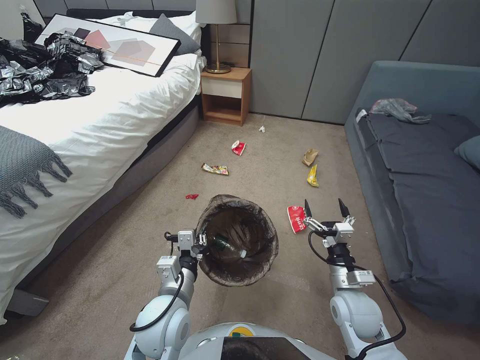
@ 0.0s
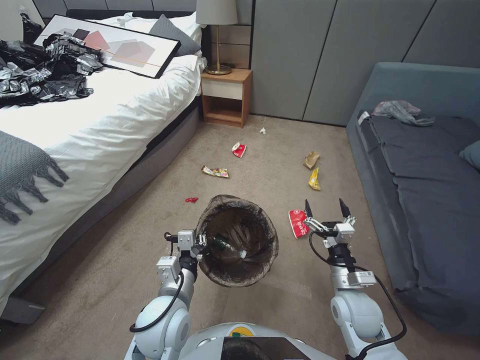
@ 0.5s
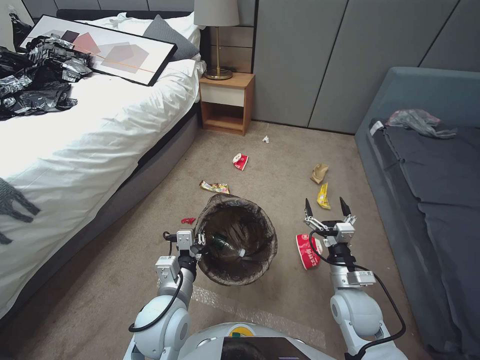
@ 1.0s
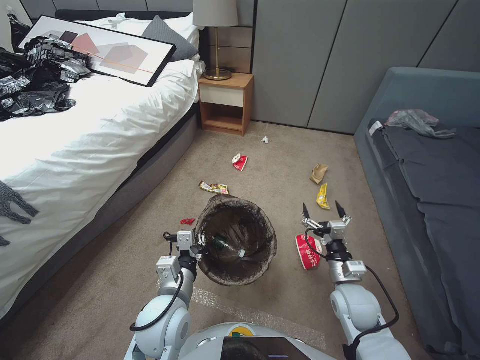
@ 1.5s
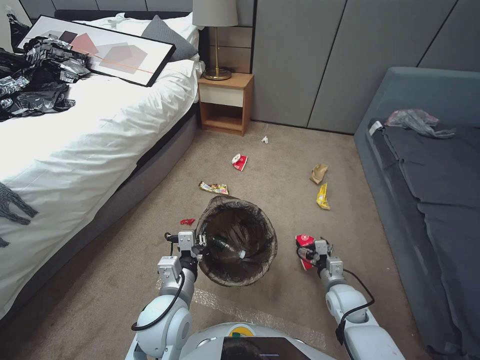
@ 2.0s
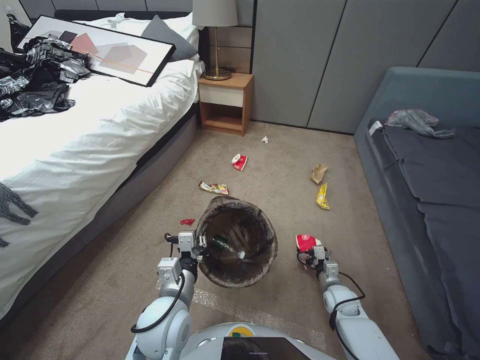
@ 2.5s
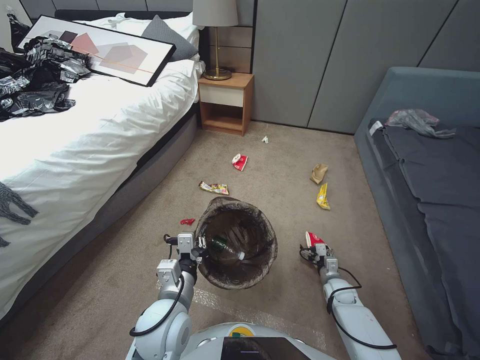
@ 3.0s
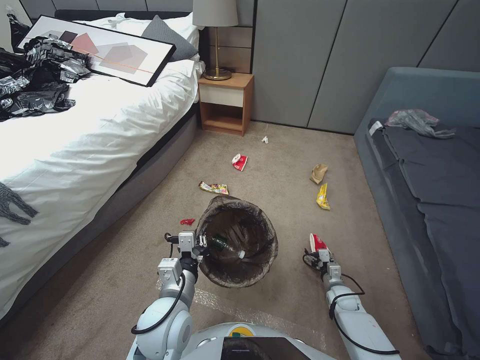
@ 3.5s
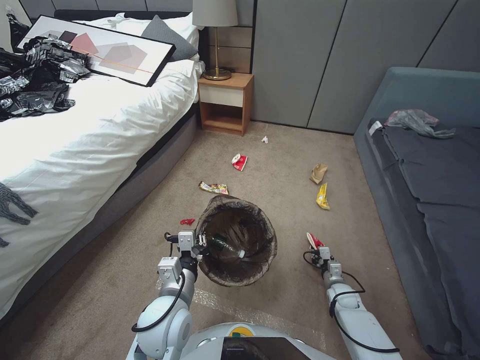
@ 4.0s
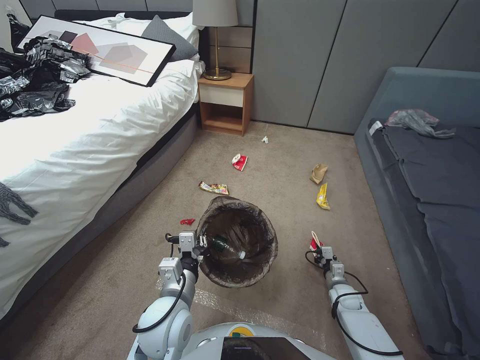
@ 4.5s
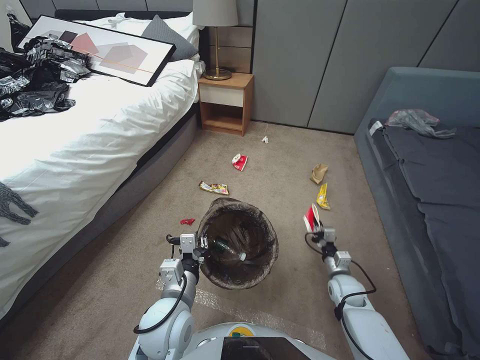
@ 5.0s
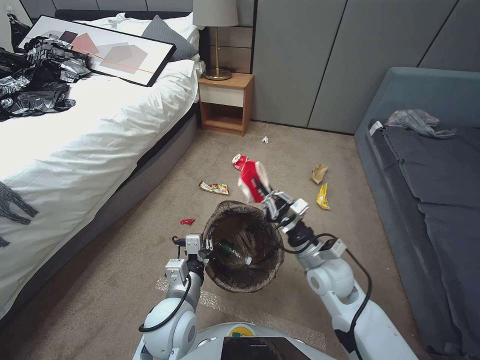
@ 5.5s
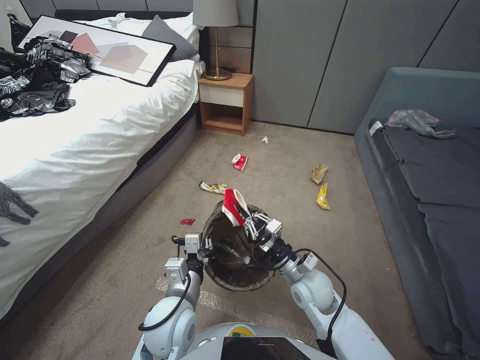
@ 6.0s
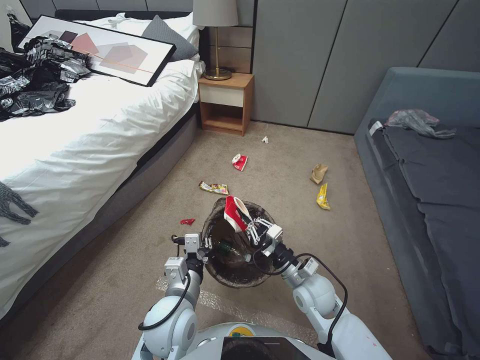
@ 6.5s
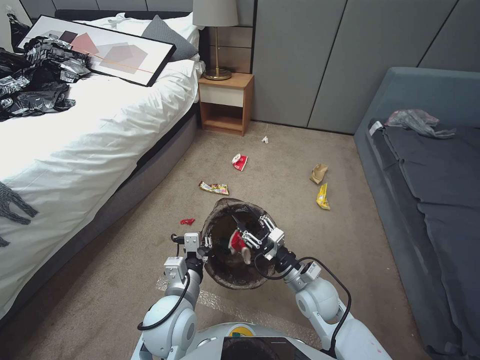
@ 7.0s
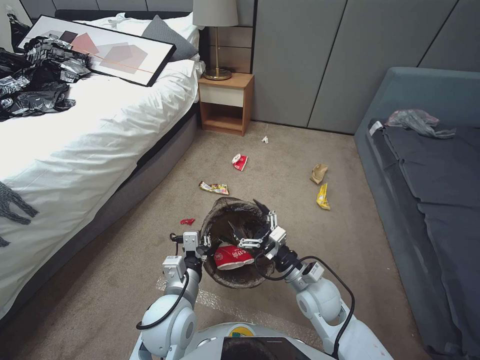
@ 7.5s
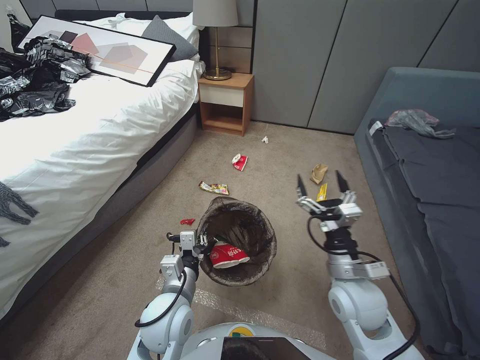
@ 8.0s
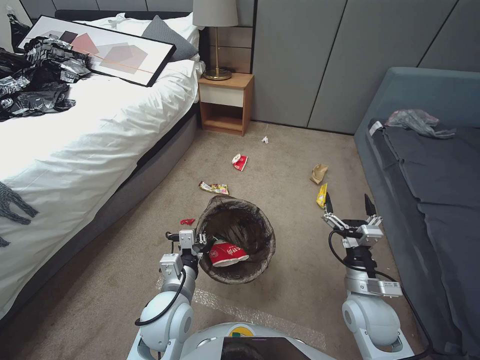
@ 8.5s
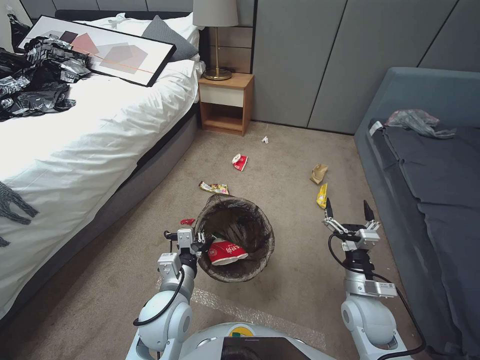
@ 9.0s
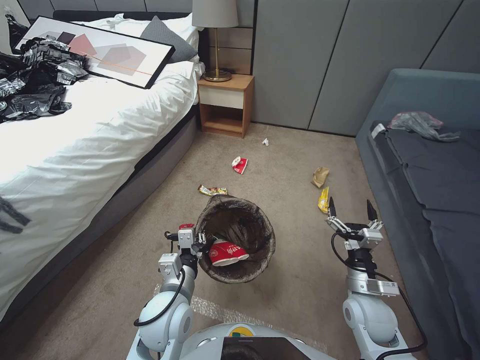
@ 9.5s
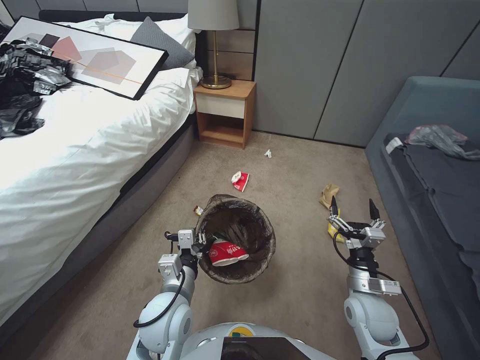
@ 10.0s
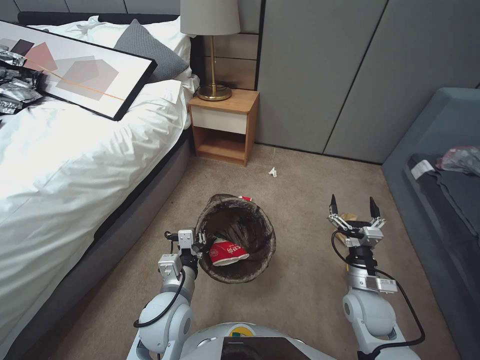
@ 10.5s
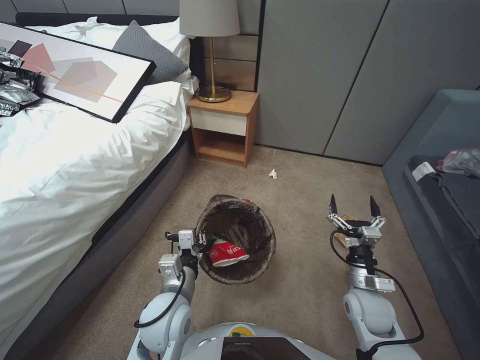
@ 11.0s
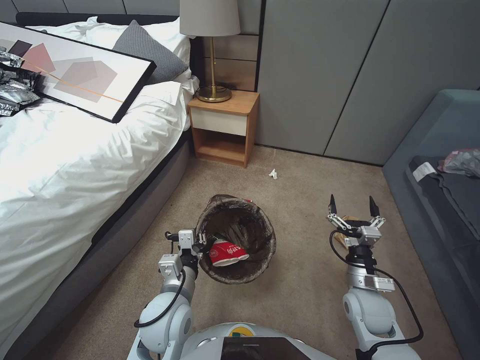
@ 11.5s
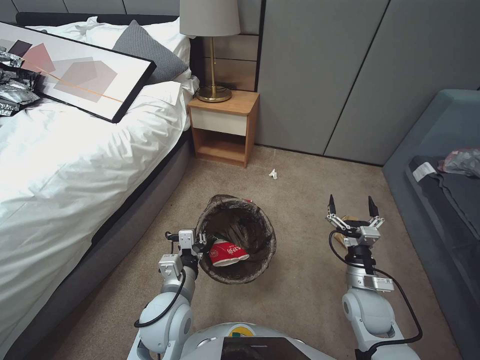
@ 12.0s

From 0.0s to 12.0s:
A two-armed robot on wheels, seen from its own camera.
Task of the whole recording: Pick up the trash bin, then pick up the garbage from the floor and place it into the trash bin.
From 0.0s to 2.0s: The right gripper is displaced downward by about 10 cm.
From 2.0s to 4.0s: The right gripper shifts some 15 cm downward and to the right, and closes up.
From 4.0s to 6.0s: The right gripper heads upward and to the left, covering some 30 cm.
From 6.0s to 8.0s: The right gripper is displaced upward by about 5 cm, and opens its fingers.
From 8.0s to 10.0s: The right gripper is displaced downward and to the right by about 10 cm.

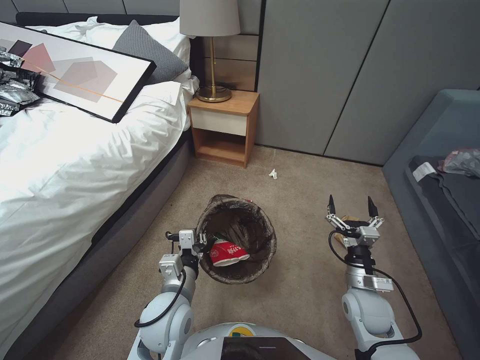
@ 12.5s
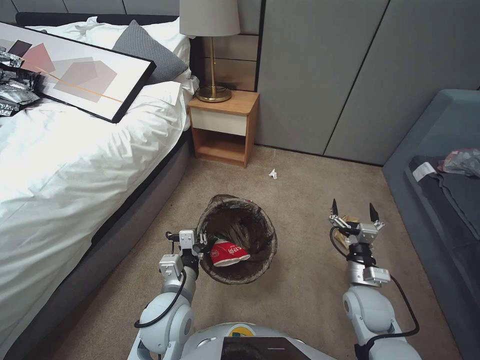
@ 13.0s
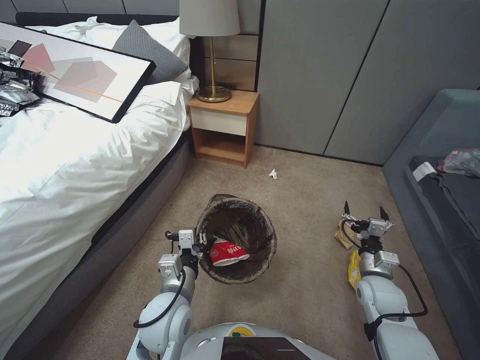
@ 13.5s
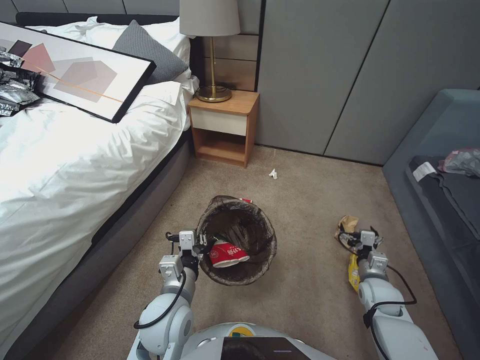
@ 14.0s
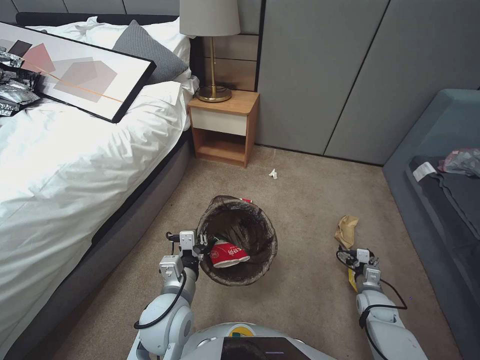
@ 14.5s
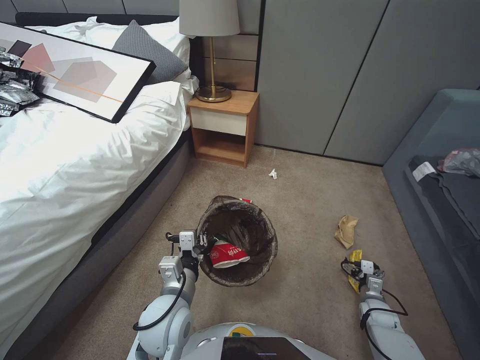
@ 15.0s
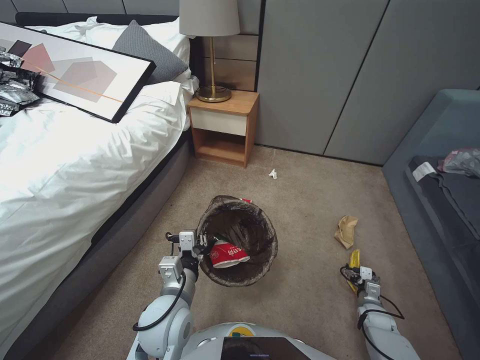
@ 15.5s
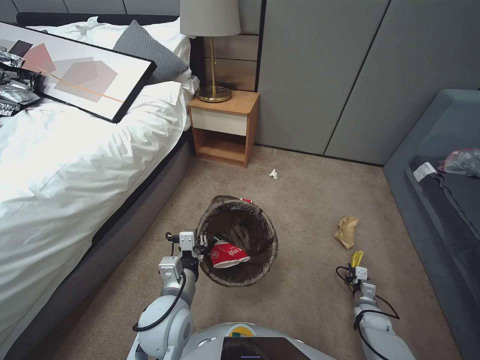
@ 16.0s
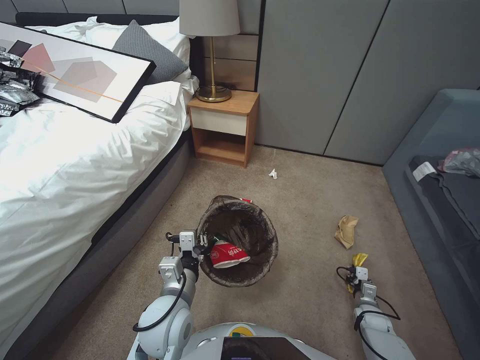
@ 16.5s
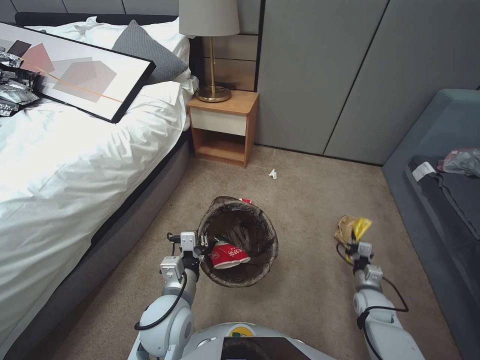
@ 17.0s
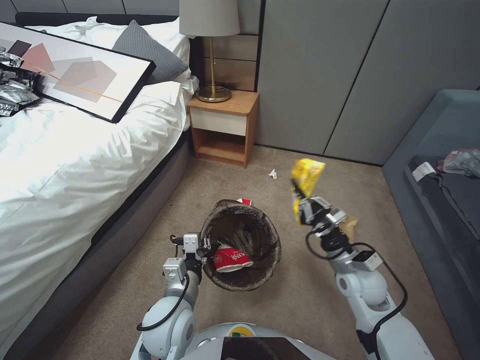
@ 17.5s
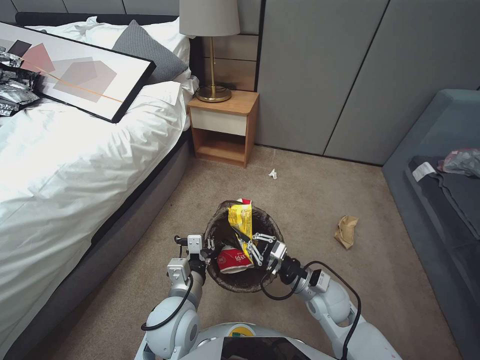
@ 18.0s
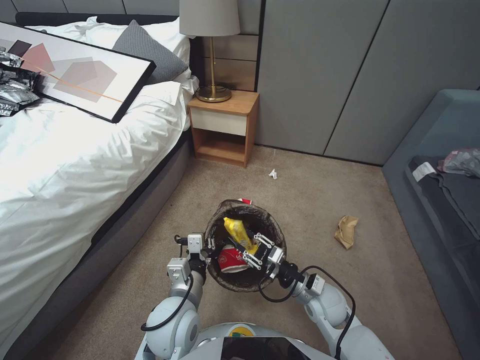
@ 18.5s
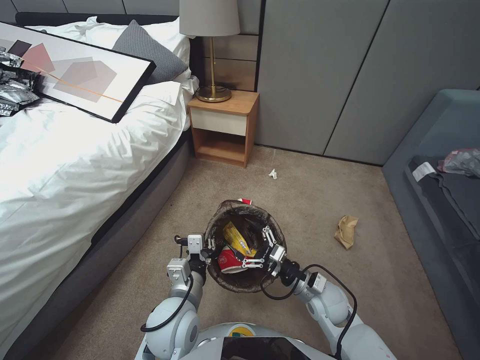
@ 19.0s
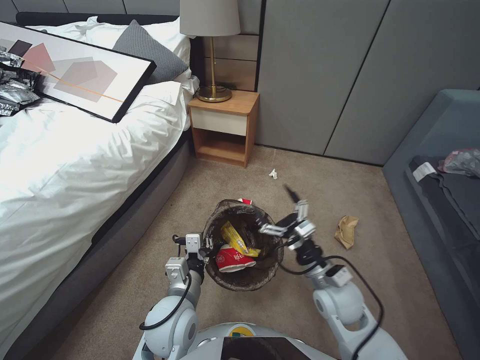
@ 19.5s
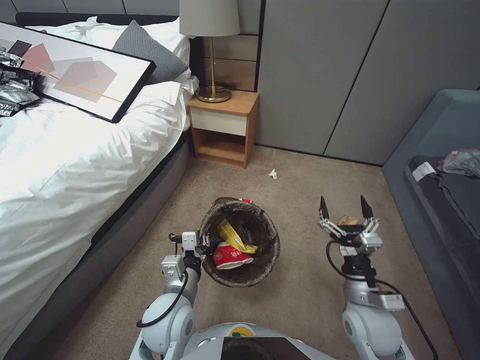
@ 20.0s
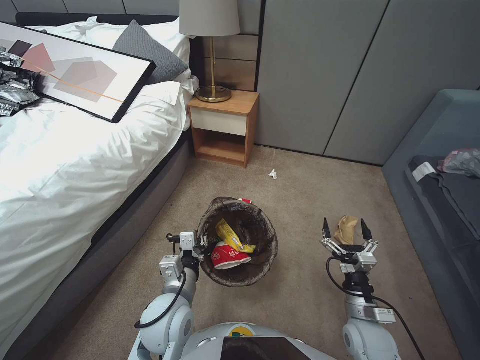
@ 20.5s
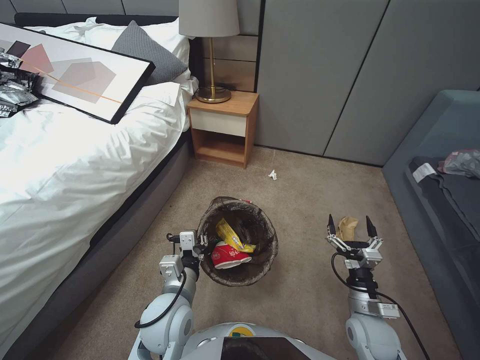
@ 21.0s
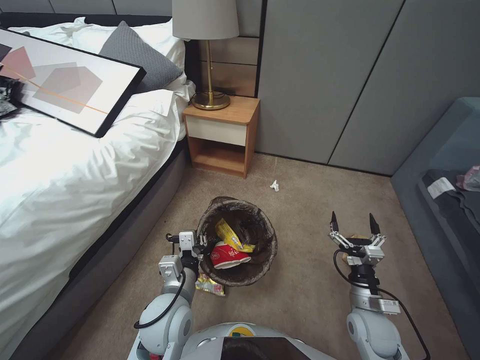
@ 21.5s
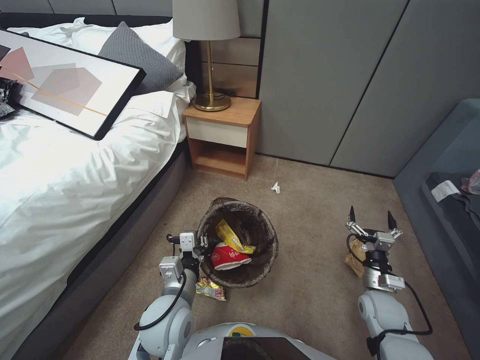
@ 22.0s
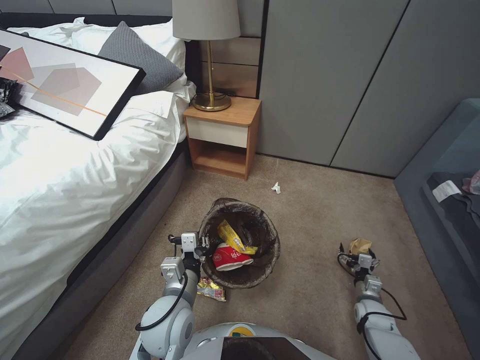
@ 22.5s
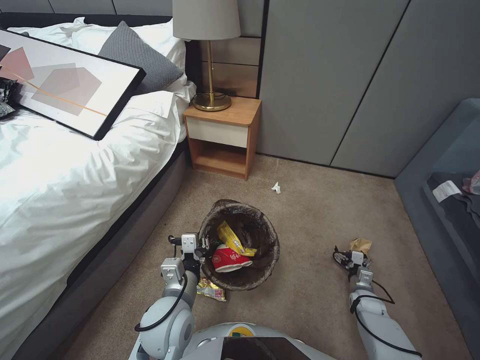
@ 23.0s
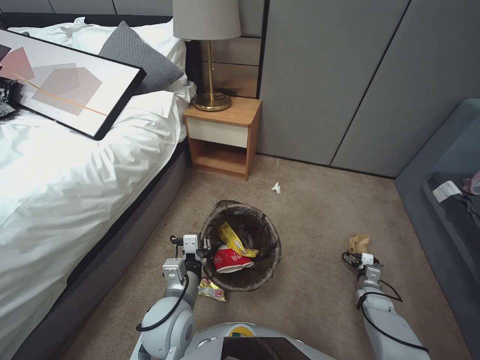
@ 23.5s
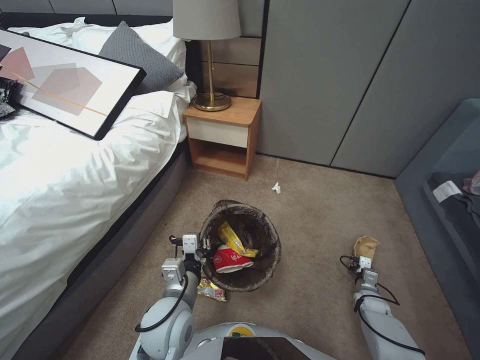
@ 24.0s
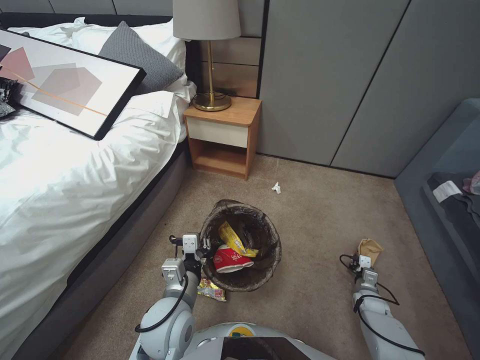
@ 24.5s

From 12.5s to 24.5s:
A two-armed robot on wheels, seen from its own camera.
Task of the whole recording: Pick up the trash bin, then pick up the garbage from the floor and place it into the trash bin.
From 12.5s to 14.5s: The right gripper goes approximately 15 cm downward and to the right.
From 14.5s to 16.5s: The right gripper is displaced downward by roughly 10 cm, and closes its fingers.
From 16.5s to 18.5s: The right gripper shifts about 30 cm to the left and upward.
From 18.5s to 20.5s: The right gripper shifts approximately 10 cm to the right and backward, reaches about 10 cm upward, then returns, and opens.
From 20.5s to 22.5s: The right gripper is displaced to the right, downward and forward by about 15 cm.
From 22.5s to 24.5s: The right gripper heads downward and to the right, covering roughly 15 cm, and closes.

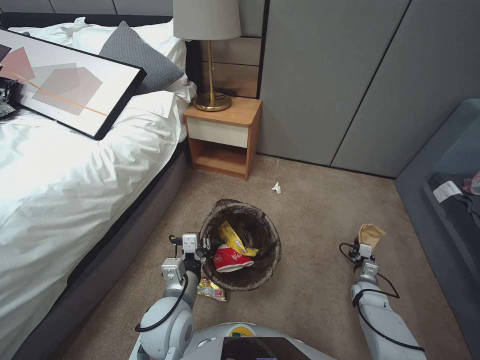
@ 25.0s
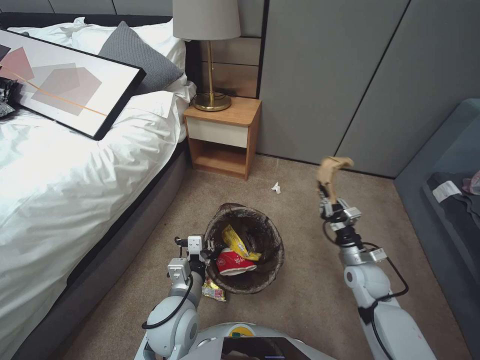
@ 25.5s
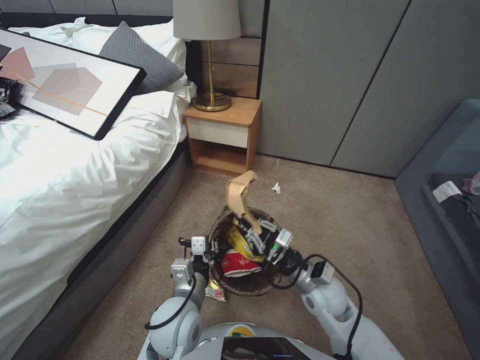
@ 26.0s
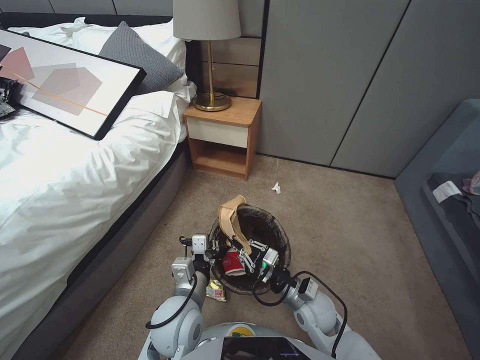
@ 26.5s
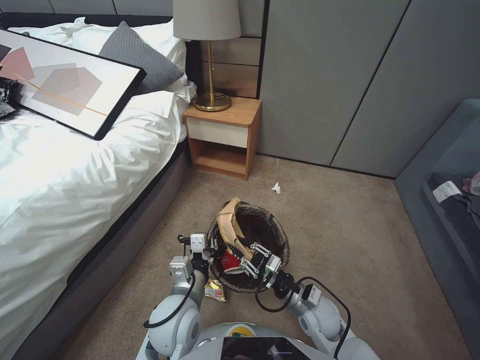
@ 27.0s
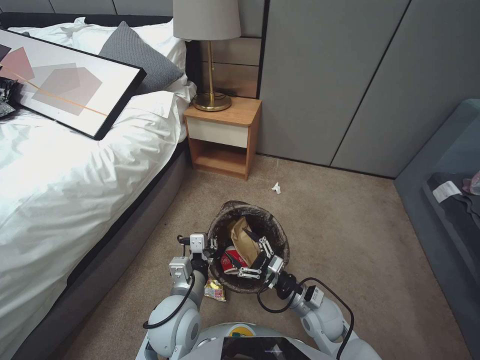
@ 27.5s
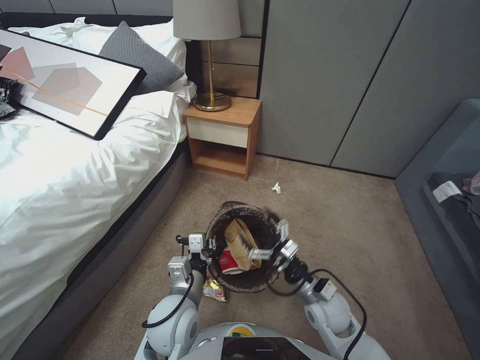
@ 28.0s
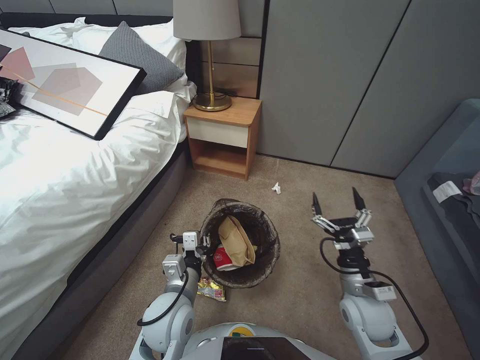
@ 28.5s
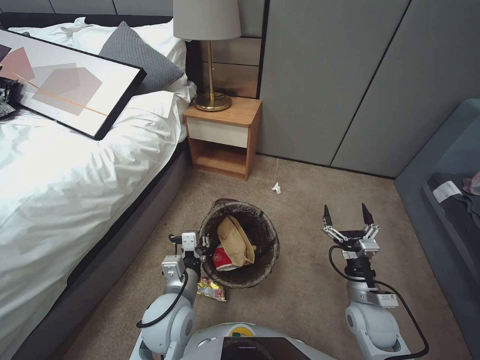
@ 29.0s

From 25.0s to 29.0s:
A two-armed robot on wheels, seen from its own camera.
Task of the whole recording: Pick up the trash bin, then pick up the garbage from the floor and place it into the trash bin.
From 25.0s to 27.0s: The right gripper goes roughly 30 cm to the left and upward.
From 27.0s to 29.0s: The right gripper heads to the right, covering roughly 10 cm, and opens.
